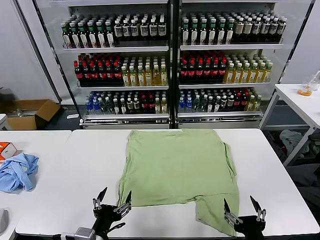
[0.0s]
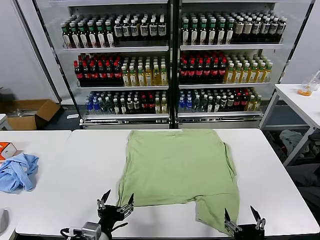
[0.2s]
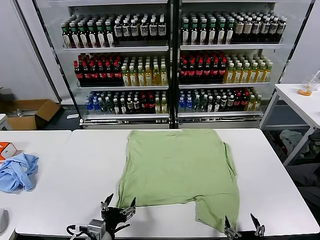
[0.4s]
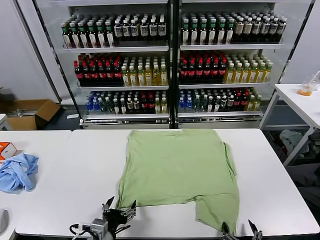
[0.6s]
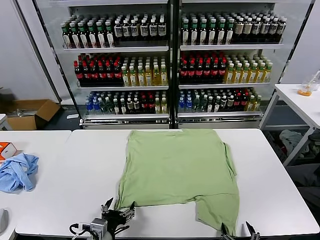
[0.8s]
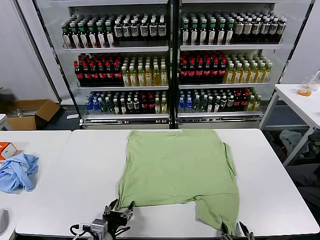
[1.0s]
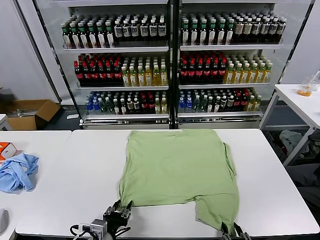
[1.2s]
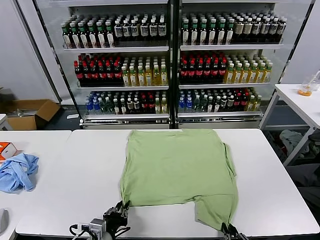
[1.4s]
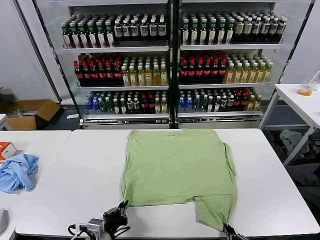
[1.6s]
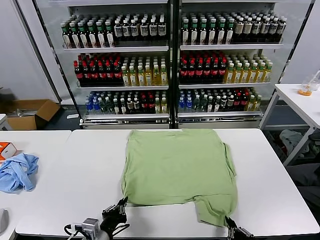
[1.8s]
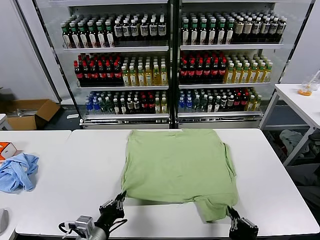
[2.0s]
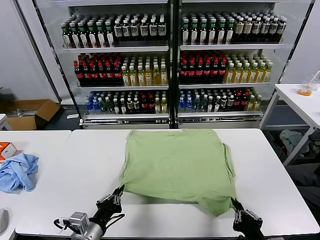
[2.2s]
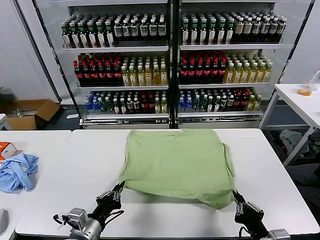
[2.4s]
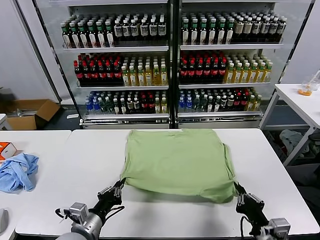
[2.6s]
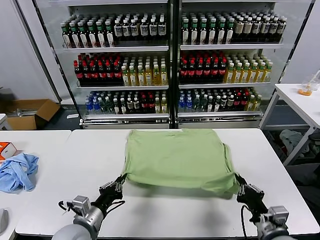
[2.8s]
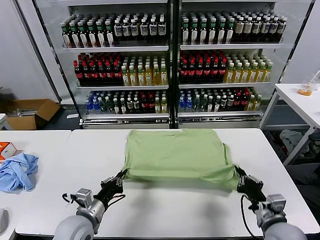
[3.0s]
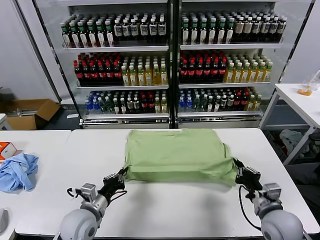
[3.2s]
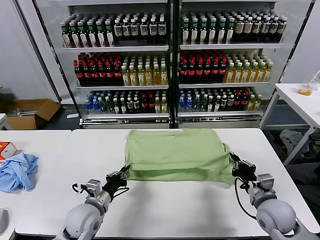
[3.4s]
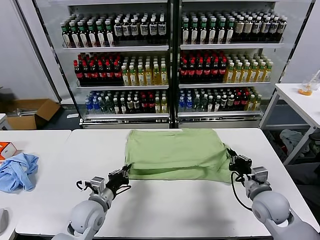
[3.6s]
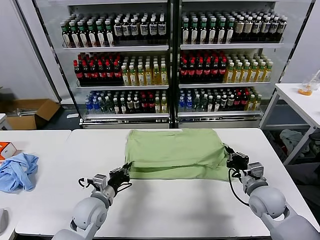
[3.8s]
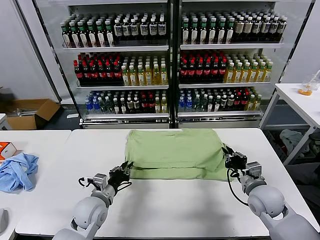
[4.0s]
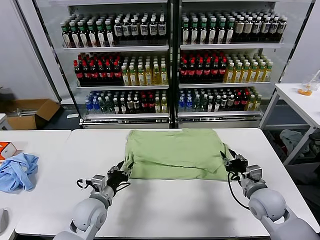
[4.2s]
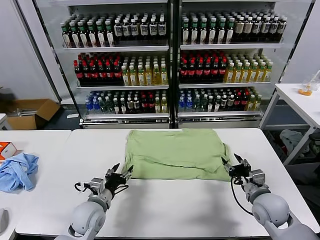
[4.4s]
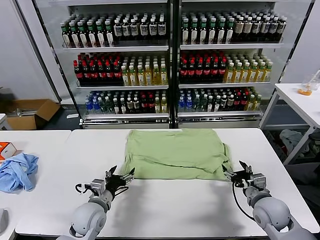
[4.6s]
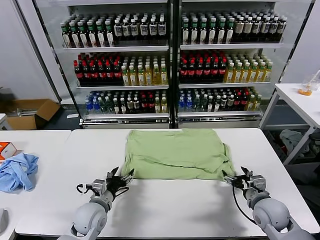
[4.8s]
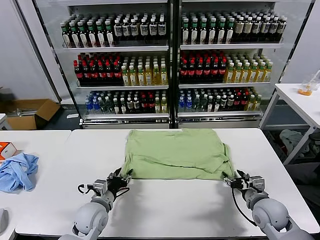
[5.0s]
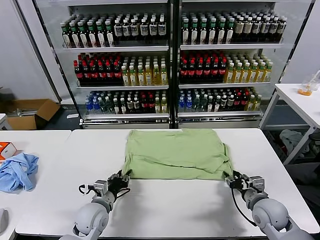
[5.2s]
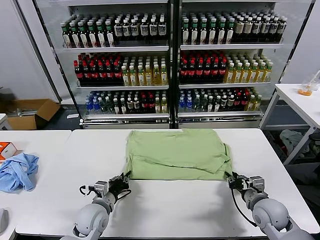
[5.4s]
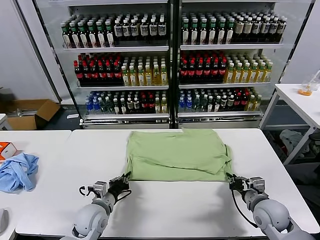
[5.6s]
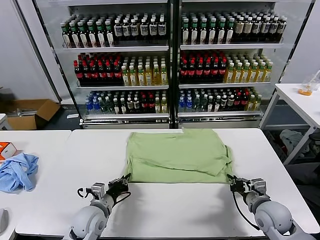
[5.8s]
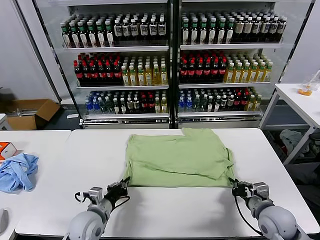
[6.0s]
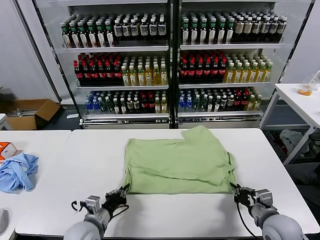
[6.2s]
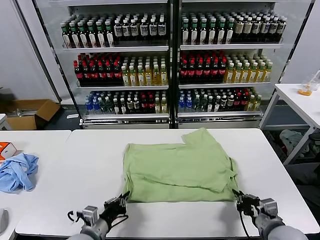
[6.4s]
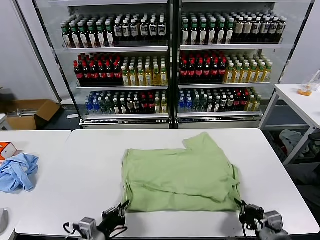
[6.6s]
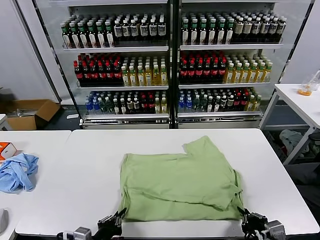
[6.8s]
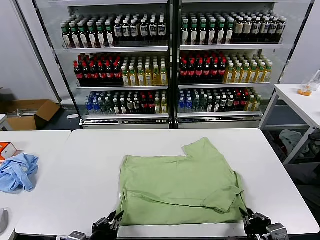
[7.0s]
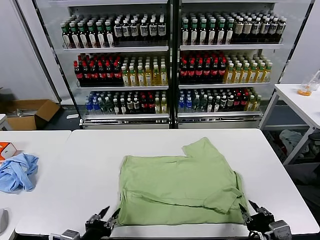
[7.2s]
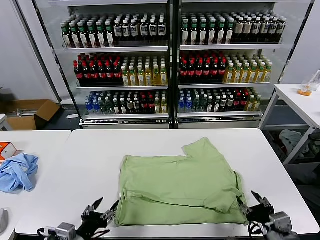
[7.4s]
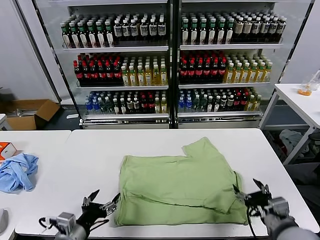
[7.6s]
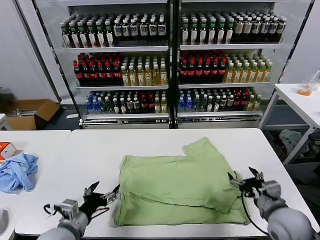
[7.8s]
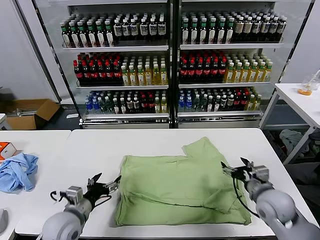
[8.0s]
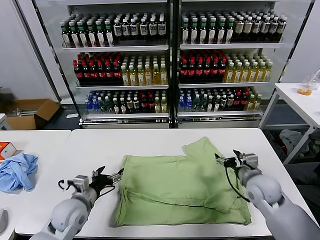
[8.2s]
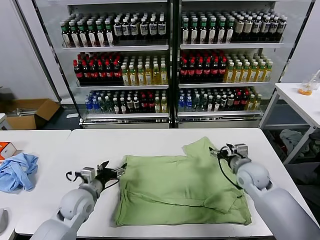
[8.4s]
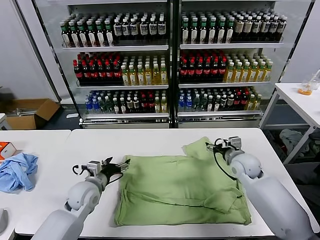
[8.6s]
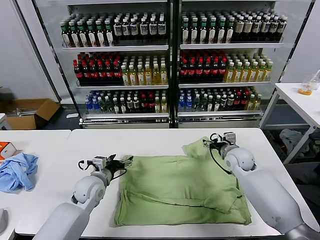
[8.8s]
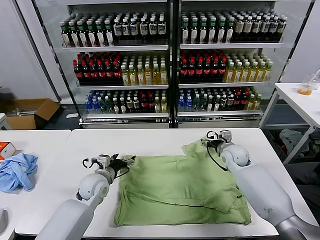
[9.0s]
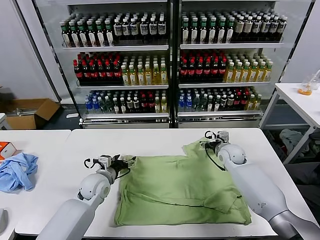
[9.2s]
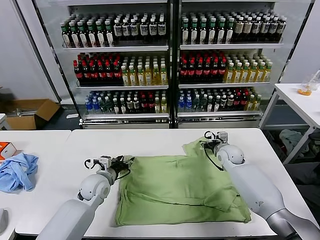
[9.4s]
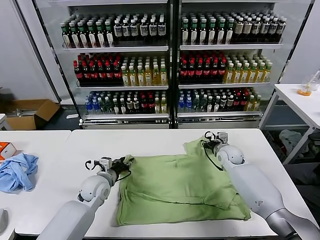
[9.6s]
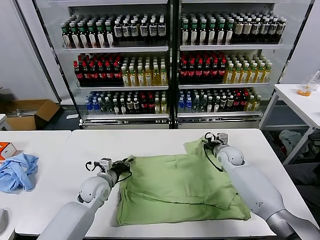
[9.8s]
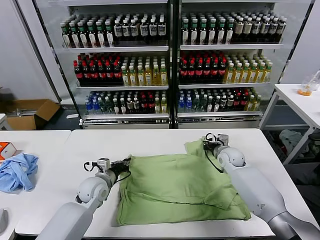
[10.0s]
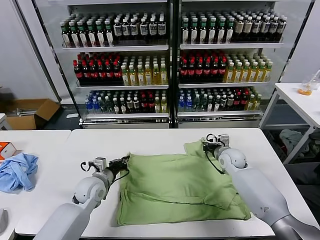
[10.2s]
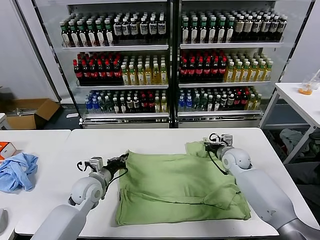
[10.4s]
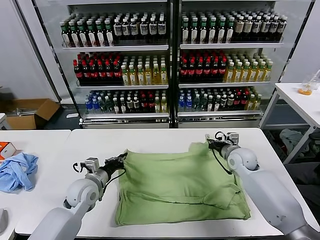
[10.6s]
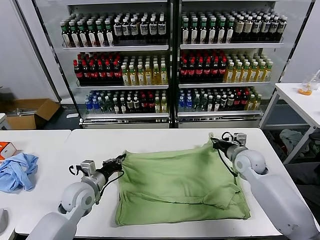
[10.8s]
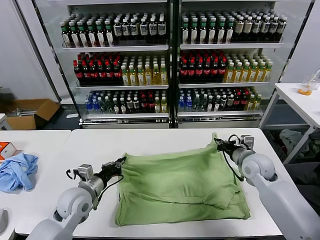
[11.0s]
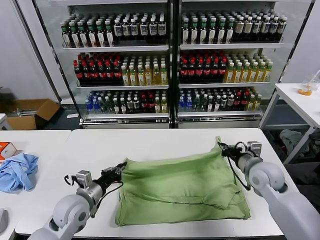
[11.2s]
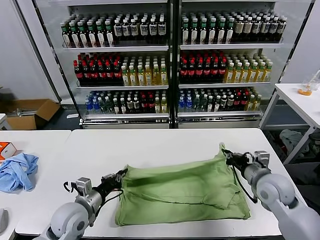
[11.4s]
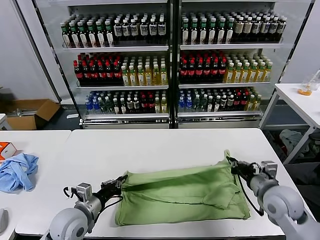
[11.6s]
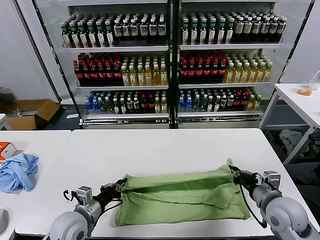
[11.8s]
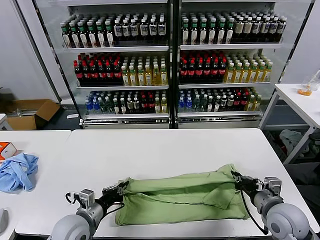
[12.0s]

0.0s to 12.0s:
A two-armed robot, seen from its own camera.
Task of the whole recording: fold and organize the clothes.
Step, 0.0s to 1.6s: use both grippers simultaneously to clamp the lower edge of the clothing fabric.
Step, 1.8s to 4.2s: use both grippers to drag the lower edge of the fabric forward and fold it over the upper edge.
Step, 4.4s to 7.2s: Drag the clothes downward with both gripper.
Step, 7.4s to 10.0s: use both grippers simultaneously to clamp the upper edge of the clothing fabric.
1.6s to 3.0s: The left gripper is displaced forward by some 10 cm, while the right gripper goes some 15 cm forward and to the right.
3.0s to 4.4s: The right gripper travels forward by about 5 cm, and opens. Meanwhile the left gripper ends up approximately 5 cm from where it was, and opens its fingers.
4.4s to 6.0s: The left gripper closes up, while the right gripper closes.
6.0s to 7.6s: The right gripper heads upward, covering some 5 cm, goes backward and returns, about 10 cm each way, and opens. The left gripper goes approximately 10 cm backward and upward, and opens.
7.6s to 9.0s: Both grippers move forward, some 25 cm.
9.0s to 10.4s: The right gripper closes; the left gripper closes.
10.4s to 12.0s: The left gripper travels backward by approximately 15 cm, while the right gripper travels backward by about 25 cm.

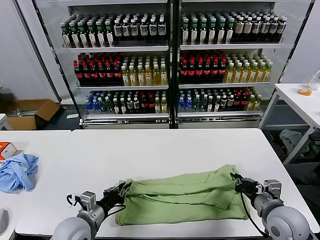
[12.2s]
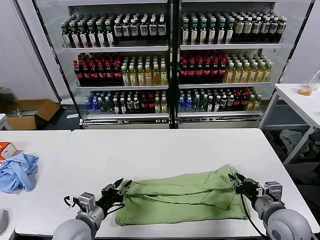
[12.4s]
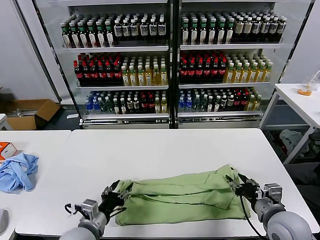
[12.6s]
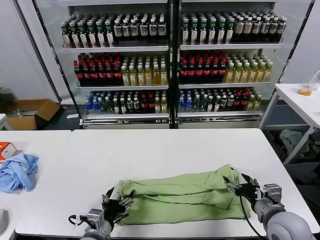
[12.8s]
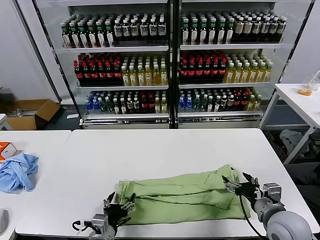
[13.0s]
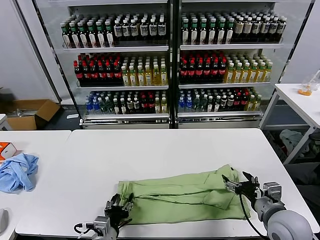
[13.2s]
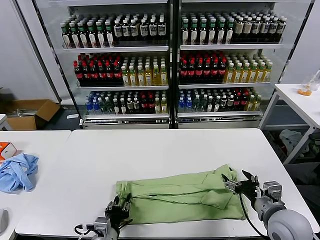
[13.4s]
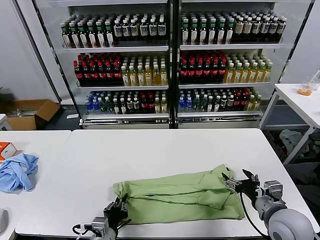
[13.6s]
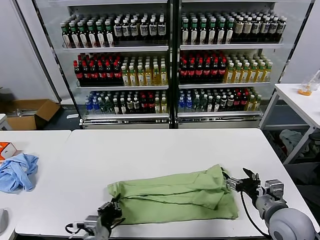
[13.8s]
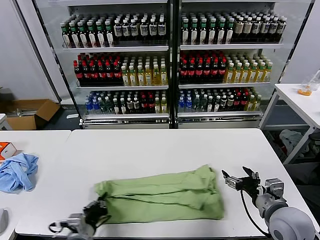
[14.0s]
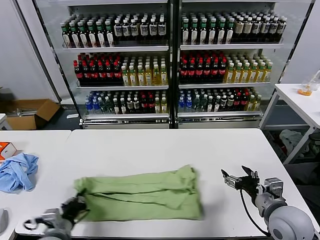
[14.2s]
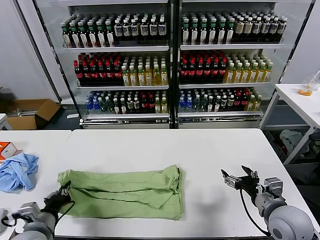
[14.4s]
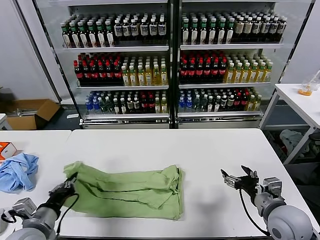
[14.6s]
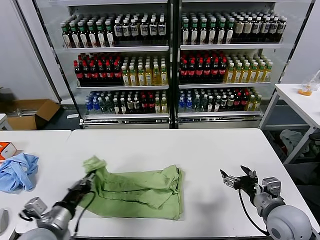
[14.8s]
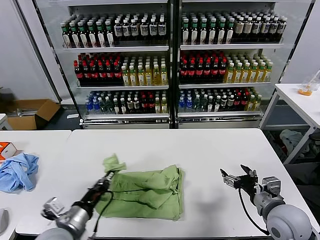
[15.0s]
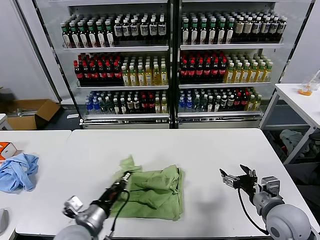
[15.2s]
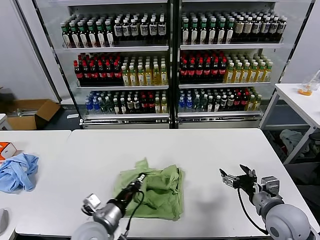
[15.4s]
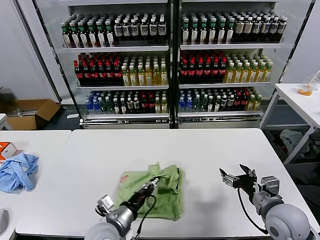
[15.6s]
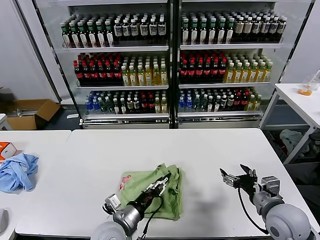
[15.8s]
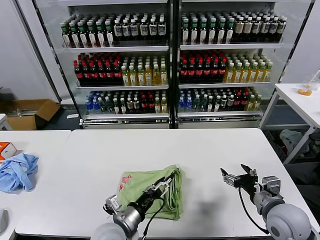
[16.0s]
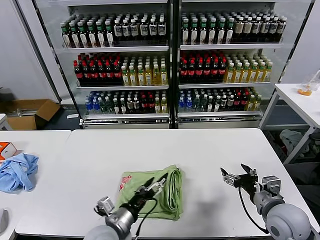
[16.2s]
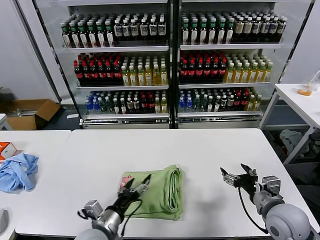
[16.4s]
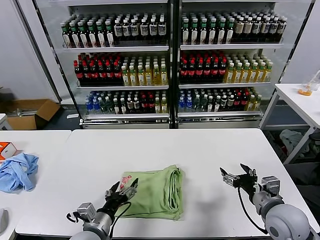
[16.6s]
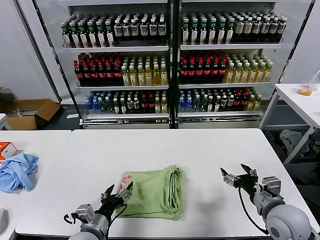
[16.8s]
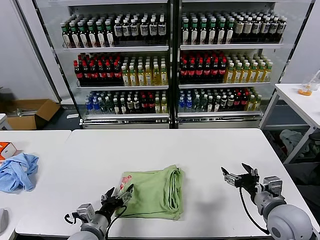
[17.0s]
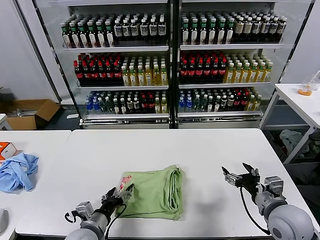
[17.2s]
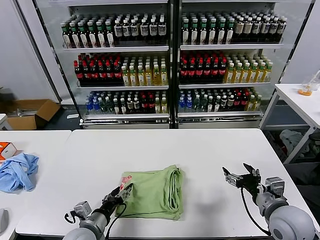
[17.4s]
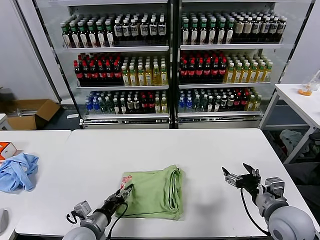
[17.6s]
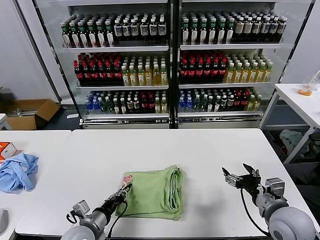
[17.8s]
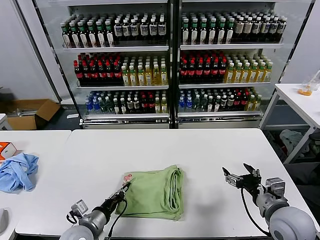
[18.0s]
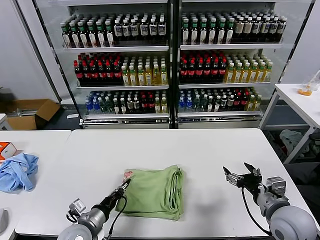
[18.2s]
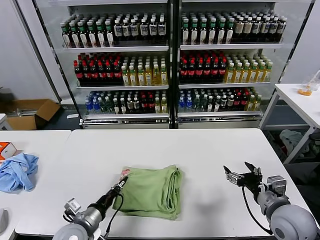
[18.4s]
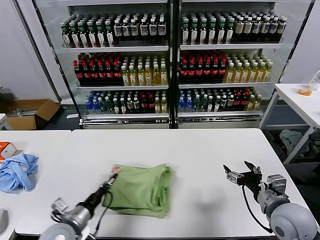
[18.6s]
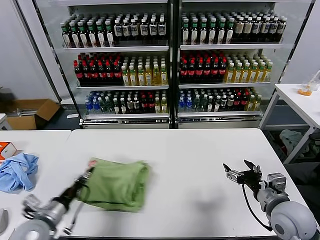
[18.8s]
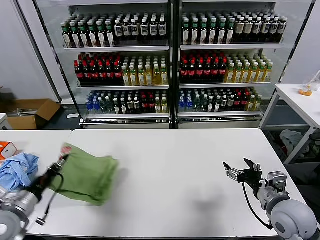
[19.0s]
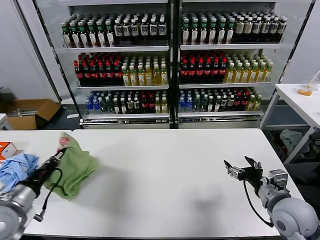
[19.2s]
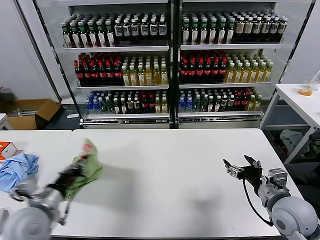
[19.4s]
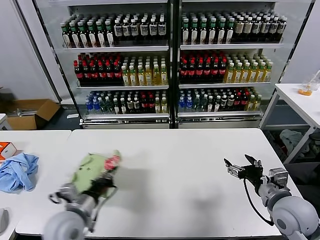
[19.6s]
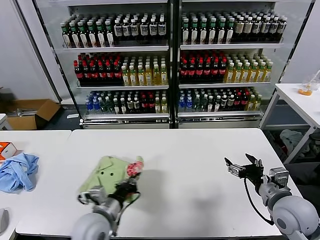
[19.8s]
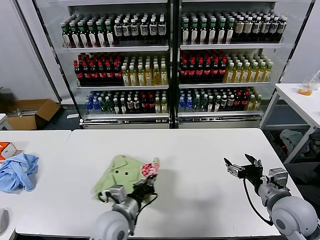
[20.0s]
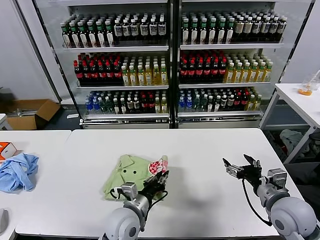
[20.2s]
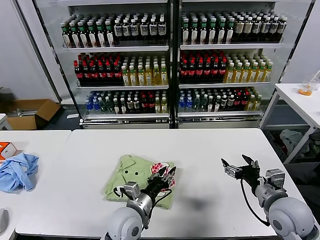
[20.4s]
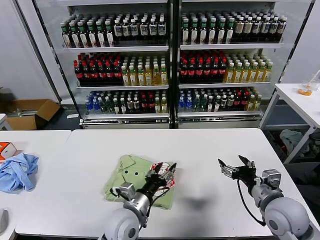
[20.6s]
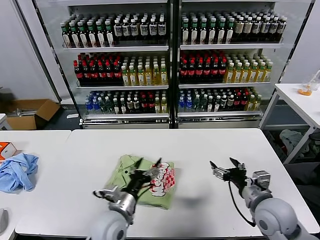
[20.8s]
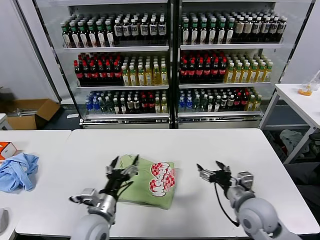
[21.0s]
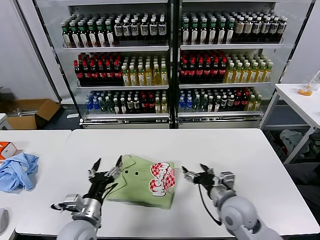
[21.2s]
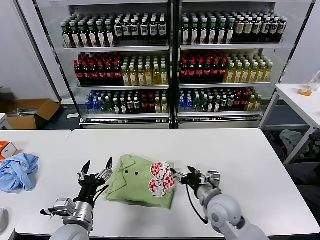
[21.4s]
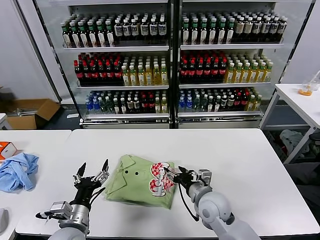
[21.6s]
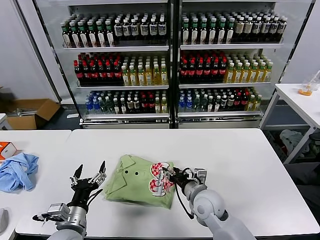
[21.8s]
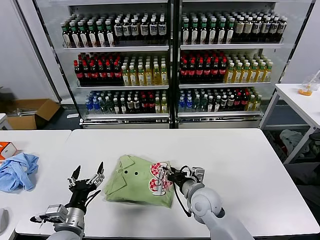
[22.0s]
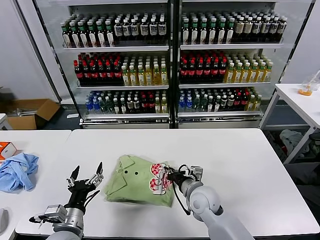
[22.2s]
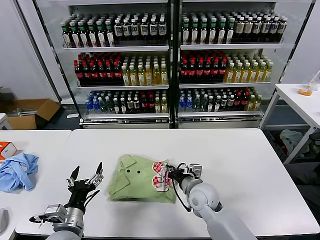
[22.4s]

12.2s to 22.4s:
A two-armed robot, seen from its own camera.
Task of the whole recording: fold and organize the clothes.
Step, 12.8s to 13.6s: use the left gripper to clamp the left edge of the fabric.
Step, 13.8s to 16.0s: use the left gripper to drag the left edge of the fabric to the left and folds it over the right edge.
Step, 16.2s to 20.4s: Flip the folded clothes over with left gripper.
12.2s to 13.6s: The right gripper opens up. Meanwhile the left gripper heads to the right and backward, covering about 10 cm, and opens and closes again.
13.6s to 15.2s: The left gripper goes roughly 10 cm upward, and goes to the left and returns, some 15 cm each way.
15.2s to 16.6s: The left gripper reaches about 10 cm to the right, then returns, and opens up.
16.6s to 18.0s: The left gripper closes its fingers.
18.0s to 19.4s: The left gripper goes roughly 15 cm upward and to the left.
19.4s to 21.0s: The left gripper heads to the right and downward, covering about 20 cm, and opens up, while the right gripper goes some 5 cm to the left.
21.0s to 22.4s: The left gripper is displaced to the left by roughly 10 cm. Meanwhile the right gripper heads to the left, forward and downward, covering approximately 15 cm, and closes up.
